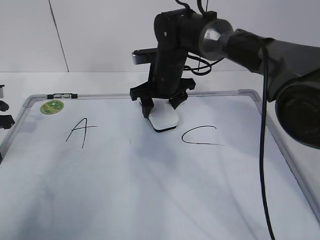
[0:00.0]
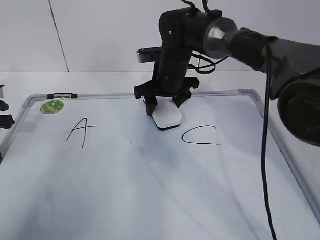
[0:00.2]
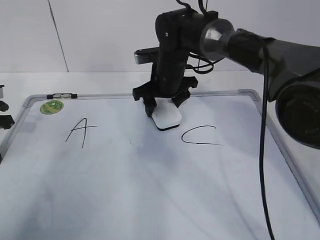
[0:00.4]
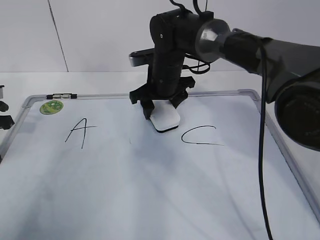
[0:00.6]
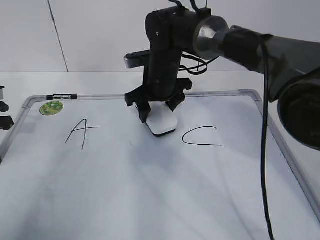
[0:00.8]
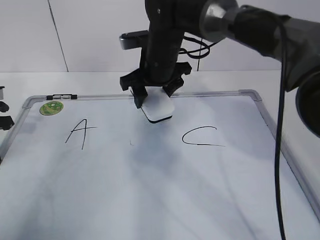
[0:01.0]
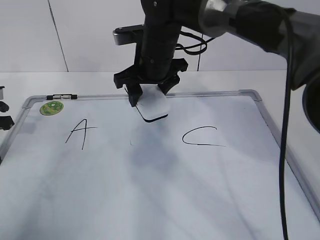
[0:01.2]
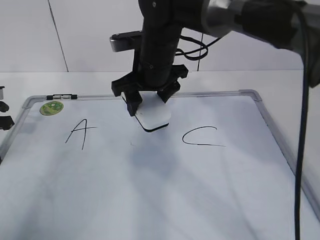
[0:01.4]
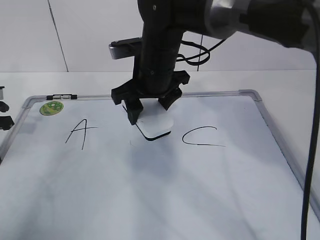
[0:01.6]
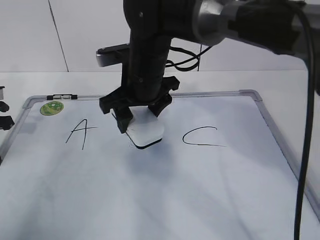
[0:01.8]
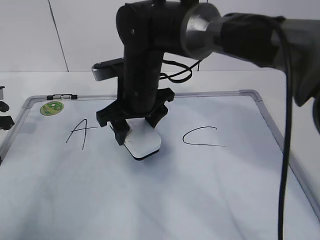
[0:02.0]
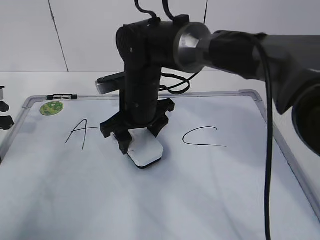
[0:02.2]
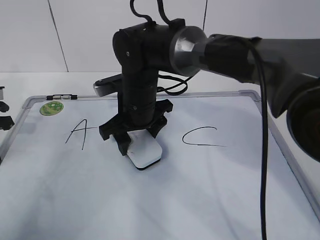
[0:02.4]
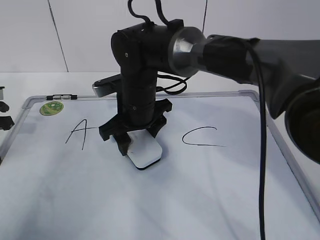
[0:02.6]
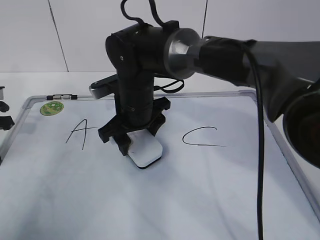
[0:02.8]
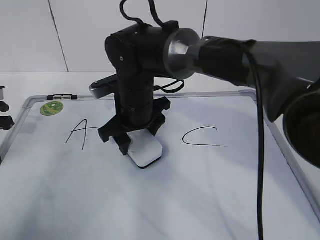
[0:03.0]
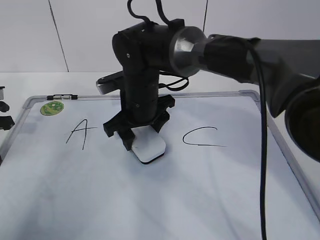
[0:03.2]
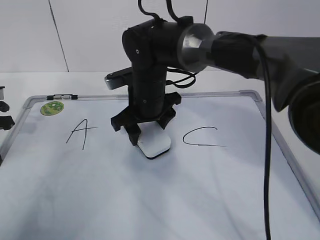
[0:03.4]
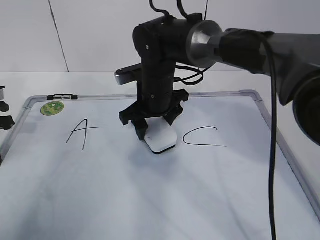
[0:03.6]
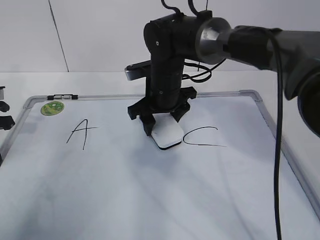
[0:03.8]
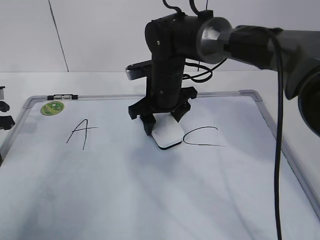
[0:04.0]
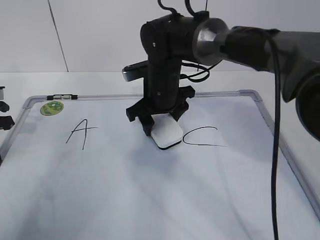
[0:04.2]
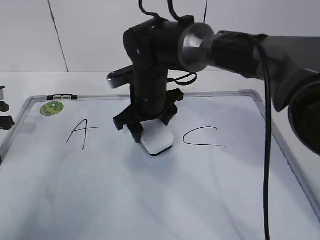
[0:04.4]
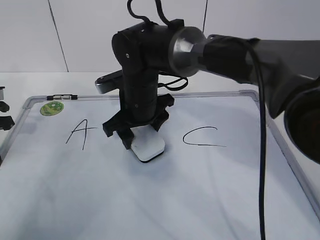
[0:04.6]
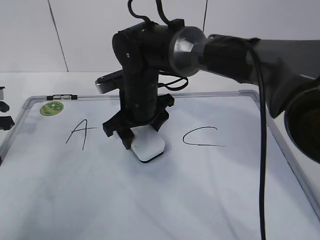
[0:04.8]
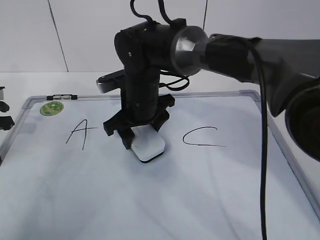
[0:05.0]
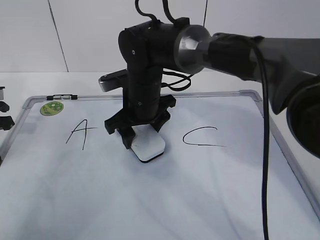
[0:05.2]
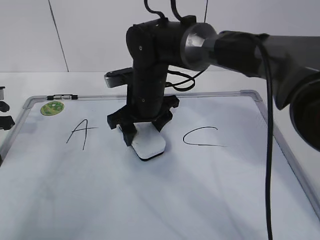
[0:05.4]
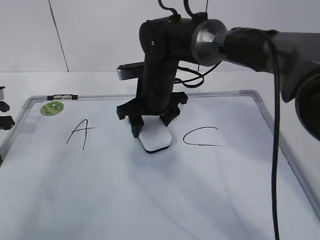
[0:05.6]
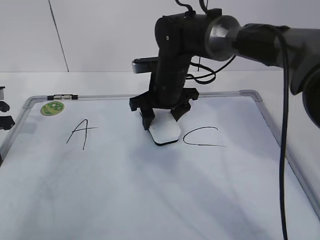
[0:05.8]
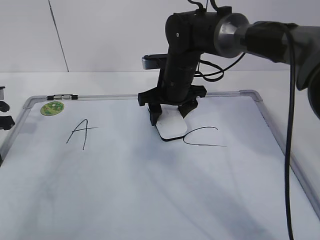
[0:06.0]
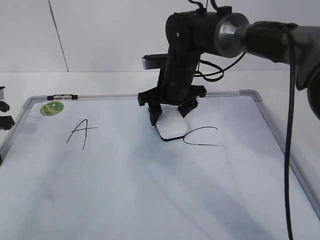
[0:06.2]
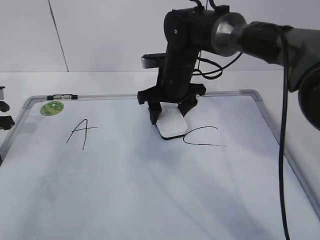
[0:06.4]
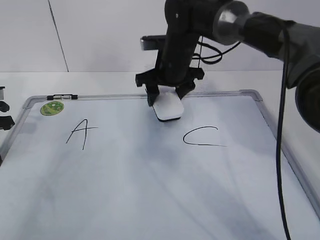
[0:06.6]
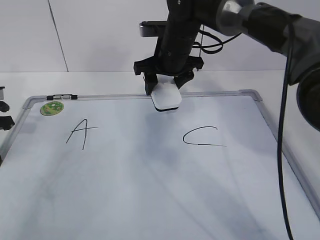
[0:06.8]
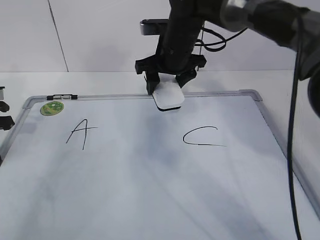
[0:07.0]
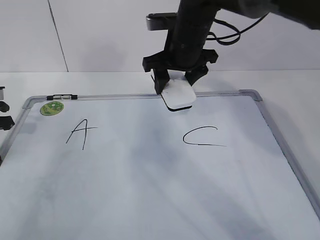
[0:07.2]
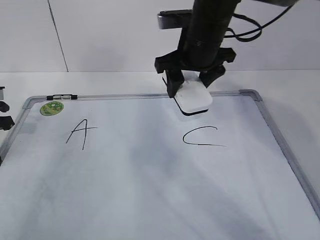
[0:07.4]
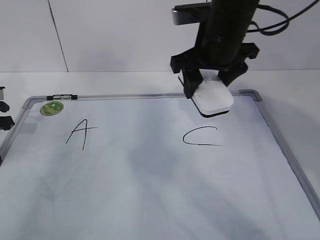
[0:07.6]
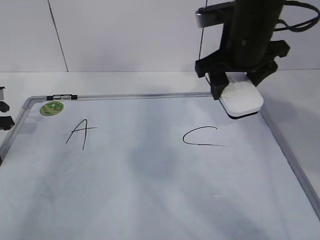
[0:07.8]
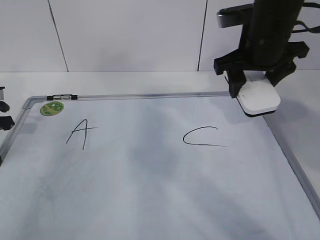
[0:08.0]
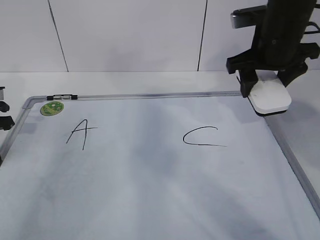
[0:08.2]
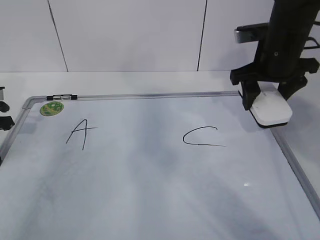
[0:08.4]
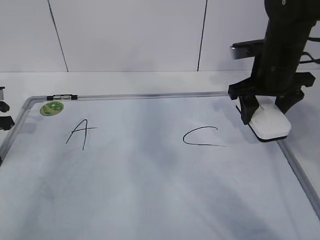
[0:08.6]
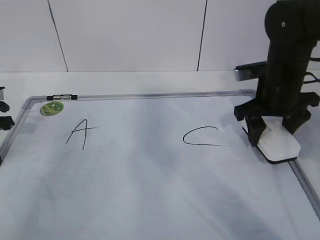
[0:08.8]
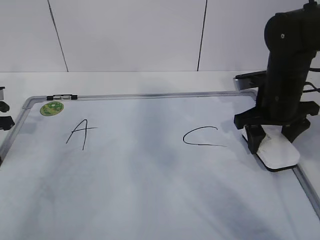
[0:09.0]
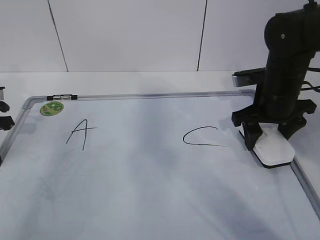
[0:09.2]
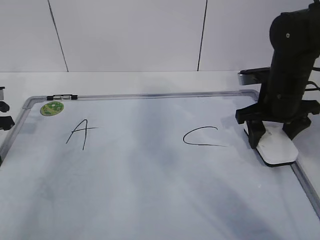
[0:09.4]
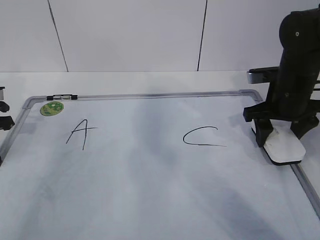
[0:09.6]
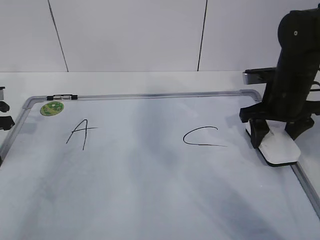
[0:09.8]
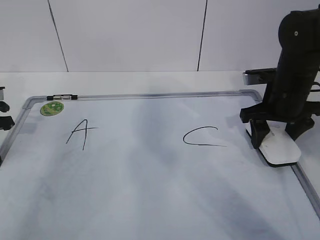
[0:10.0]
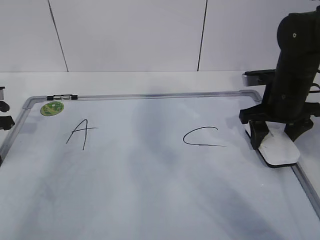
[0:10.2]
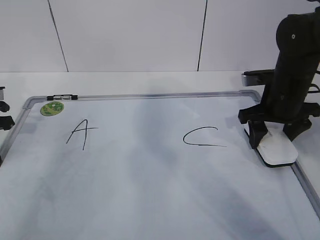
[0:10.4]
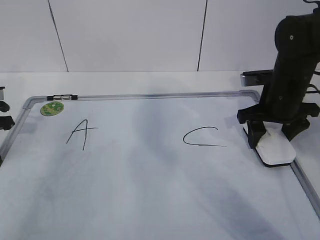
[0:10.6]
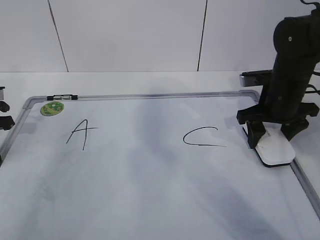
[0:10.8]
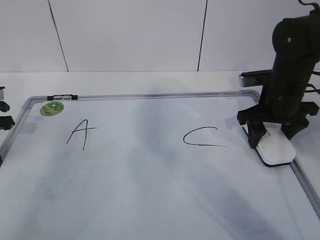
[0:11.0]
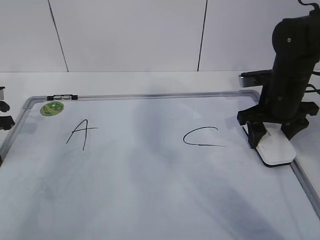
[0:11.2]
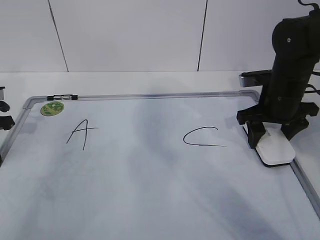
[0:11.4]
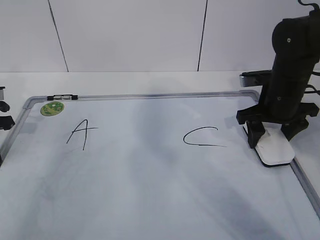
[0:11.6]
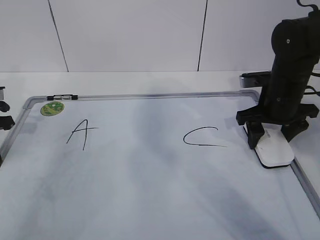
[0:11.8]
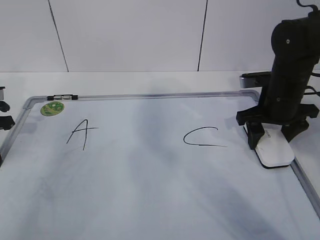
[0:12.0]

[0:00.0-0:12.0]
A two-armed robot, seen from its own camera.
Task of the whole recording: pick up the eraser on the blackboard and erase the letter "B".
Step, 0:01.4 to 0:06.4: Put down the eraser with your right hand.
0:00.0 to 0:01.6: The right gripper travels backward and upward by some 10 cm.
0:01.6 to 0:03.0: The right gripper is displaced downward by roughly 5 cm.
0:04.4 to 0:06.0: The right gripper travels to the right by some 5 cm.
0:06.0 to 0:07.6: The right gripper goes roughly 15 cm upward and backward.
0:07.6 to 0:09.0: The right gripper is displaced to the right and downward by approximately 15 cm.
0:09.0 to 0:10.4: The grippers stay close to where they were, moving slightly.
0:10.4 to 0:12.0: The two grippers keep their place.

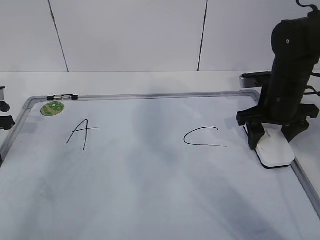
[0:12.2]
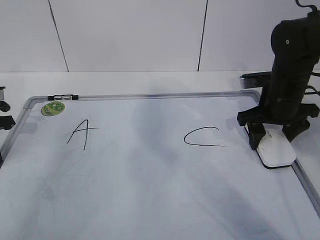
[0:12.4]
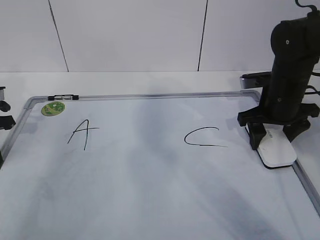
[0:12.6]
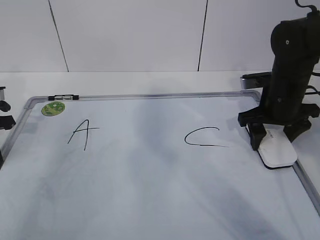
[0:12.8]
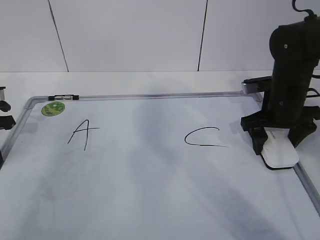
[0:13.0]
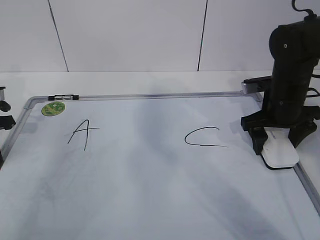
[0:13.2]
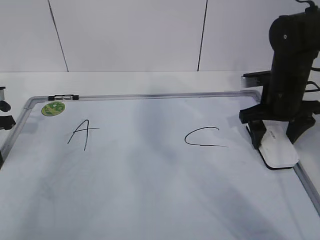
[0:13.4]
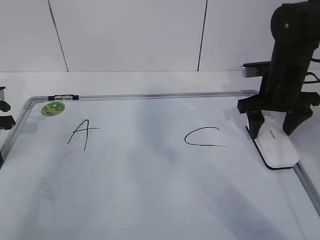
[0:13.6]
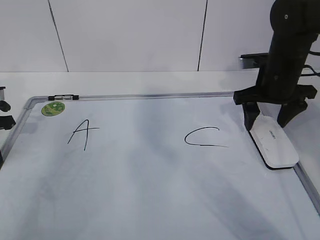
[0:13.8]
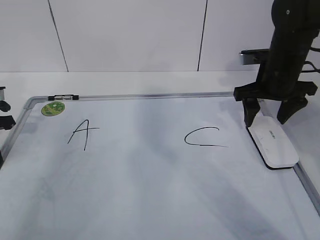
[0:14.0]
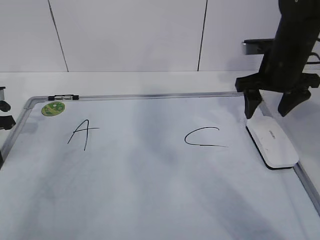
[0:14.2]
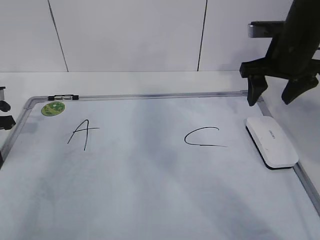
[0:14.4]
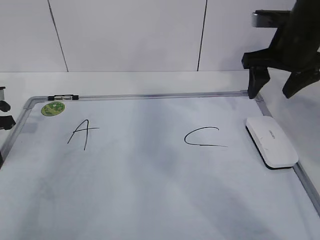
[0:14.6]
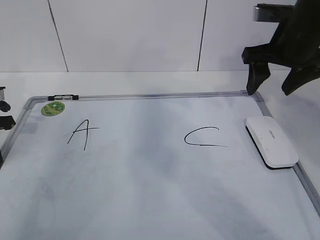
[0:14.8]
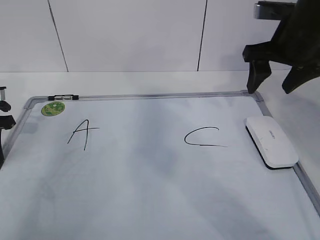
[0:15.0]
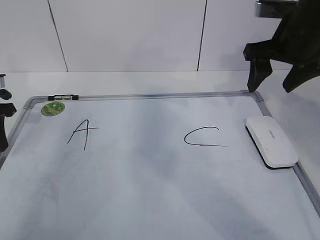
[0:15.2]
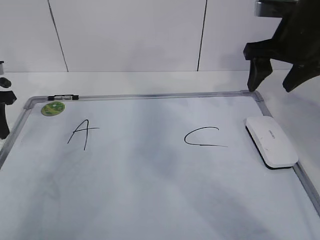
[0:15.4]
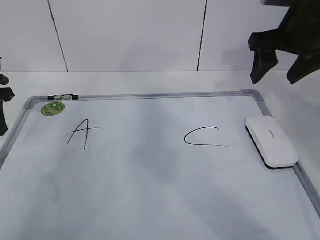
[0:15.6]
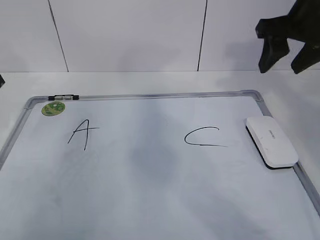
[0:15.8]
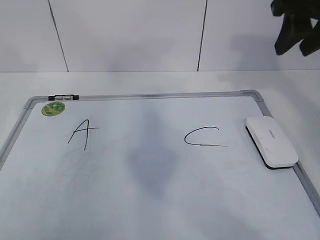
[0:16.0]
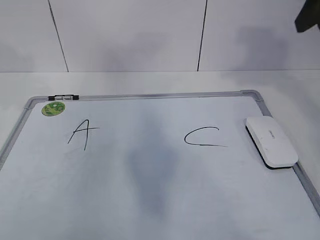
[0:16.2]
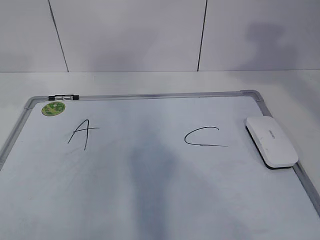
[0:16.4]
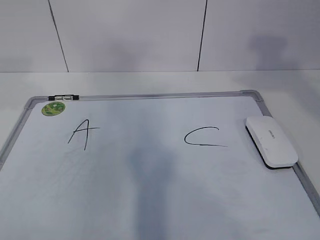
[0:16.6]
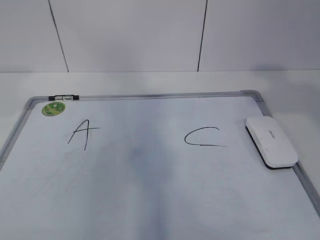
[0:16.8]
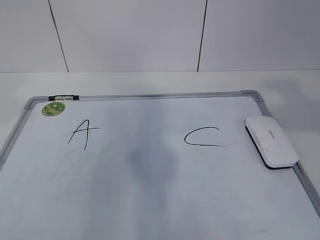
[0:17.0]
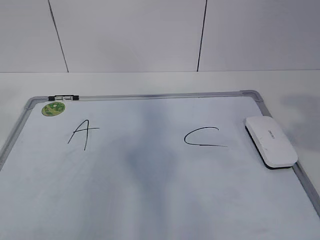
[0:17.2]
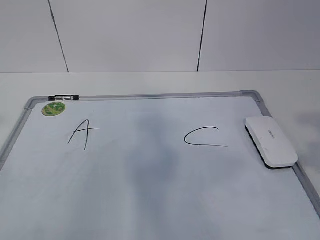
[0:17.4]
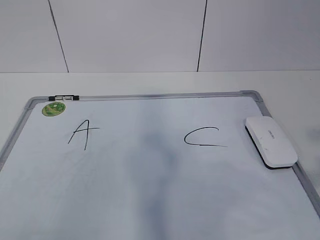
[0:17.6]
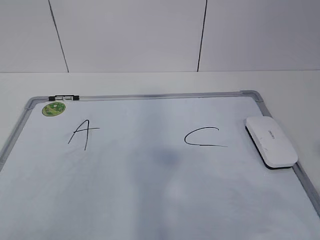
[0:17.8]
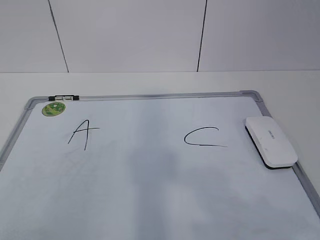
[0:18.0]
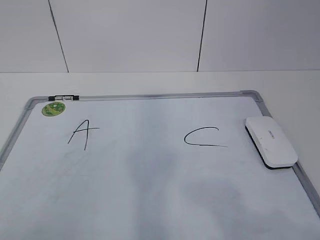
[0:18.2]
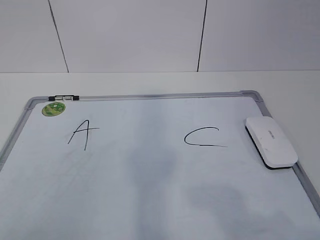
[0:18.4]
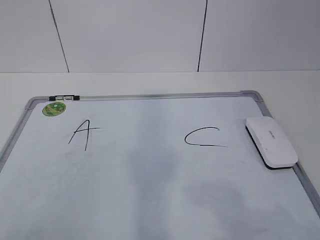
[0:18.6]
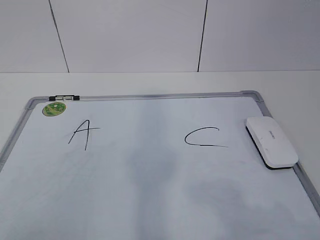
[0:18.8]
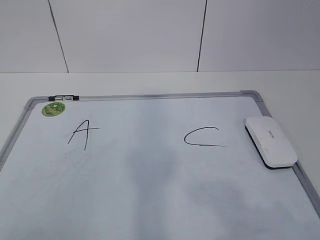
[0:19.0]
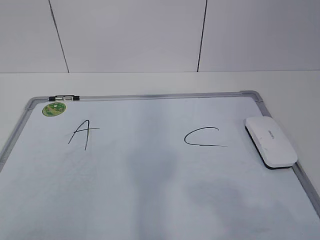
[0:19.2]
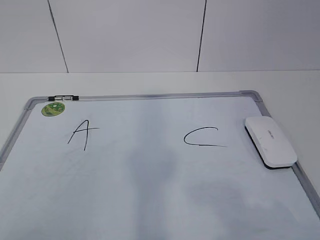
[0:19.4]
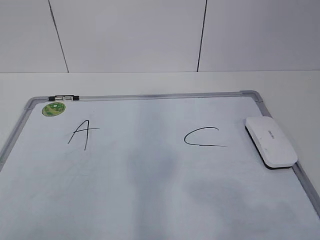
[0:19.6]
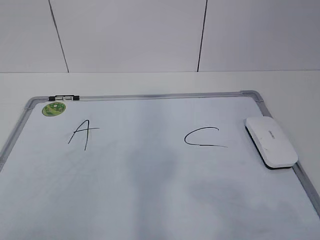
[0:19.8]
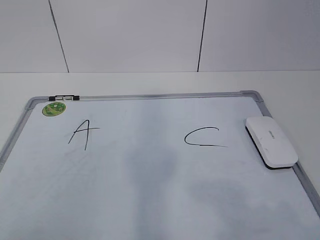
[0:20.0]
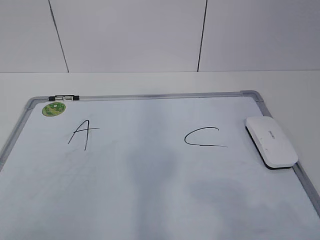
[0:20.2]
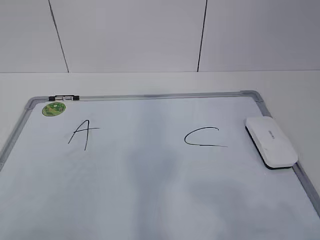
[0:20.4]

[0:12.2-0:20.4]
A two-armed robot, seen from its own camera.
Task of the whole recording: pick up the eraser on the blackboard and erase the letter "B".
0:12.2 to 0:13.8: The grippers stay close to where they were, moving slightly.
0:13.8 to 0:15.4: The right gripper goes about 10 cm upward, while the left gripper opens.
0:15.4 to 0:17.2: The left gripper shifts about 35 cm backward and upward; the right gripper goes roughly 30 cm backward, and closes.
0:17.2 to 0:18.8: The two grippers go roughly 15 cm downward and backward.
0:18.8 to 0:20.4: Both grippers stay about where they are.
